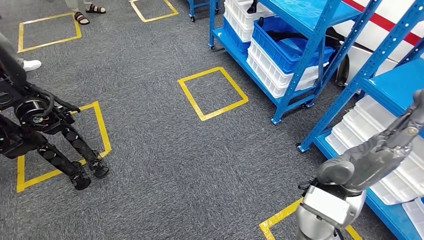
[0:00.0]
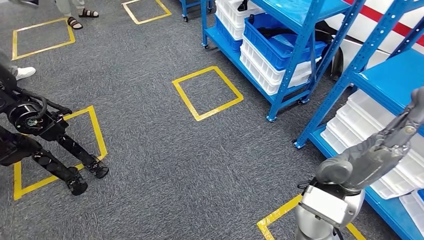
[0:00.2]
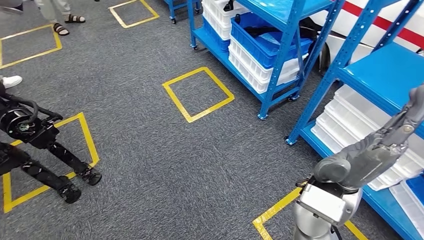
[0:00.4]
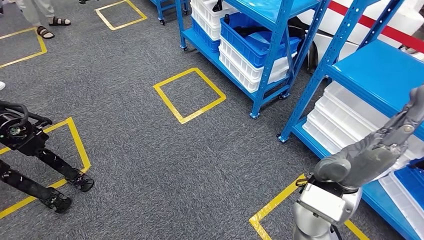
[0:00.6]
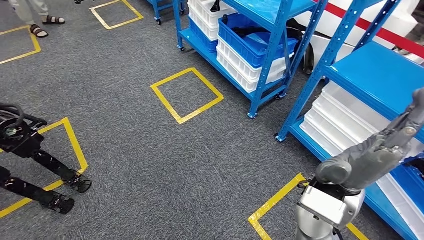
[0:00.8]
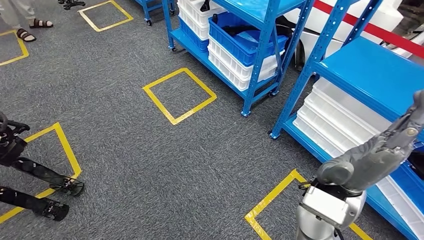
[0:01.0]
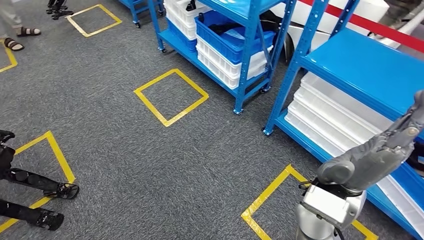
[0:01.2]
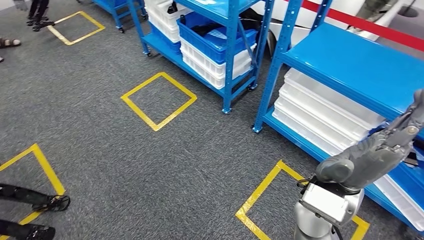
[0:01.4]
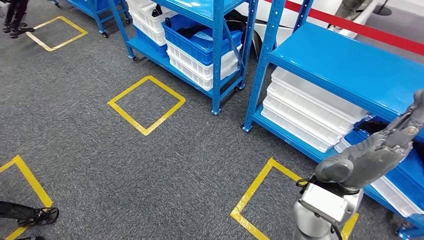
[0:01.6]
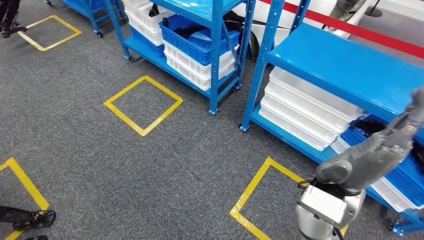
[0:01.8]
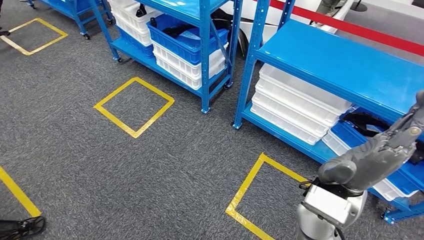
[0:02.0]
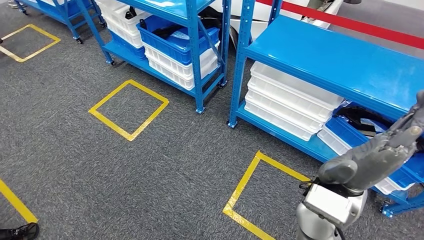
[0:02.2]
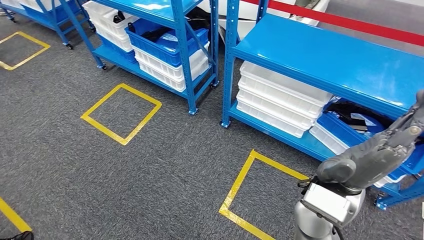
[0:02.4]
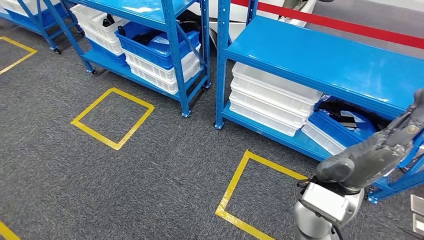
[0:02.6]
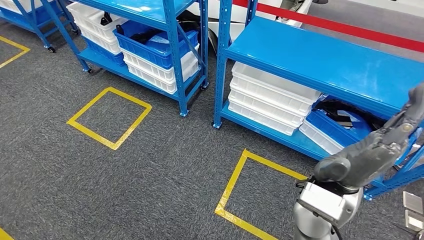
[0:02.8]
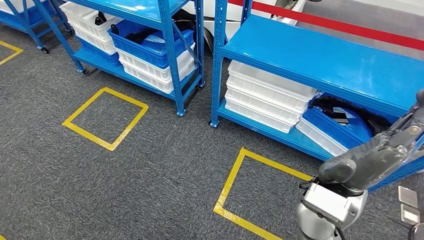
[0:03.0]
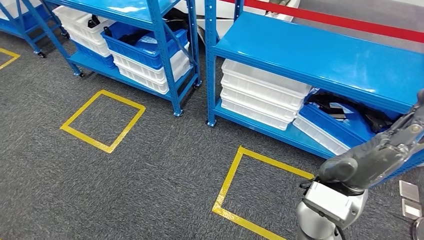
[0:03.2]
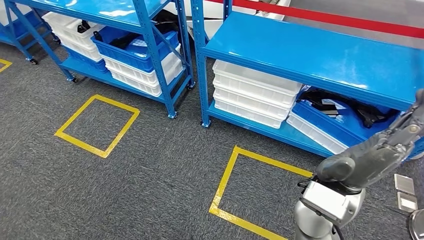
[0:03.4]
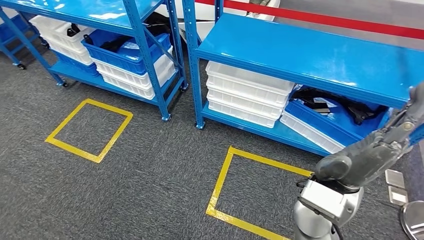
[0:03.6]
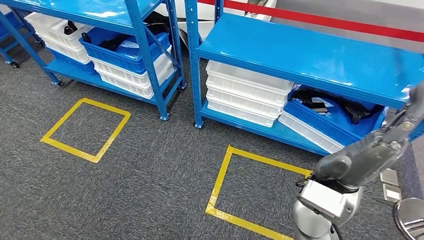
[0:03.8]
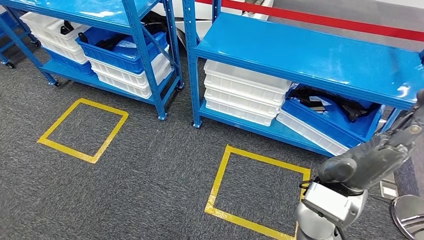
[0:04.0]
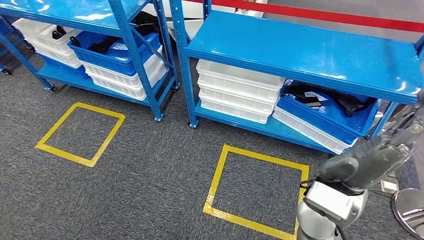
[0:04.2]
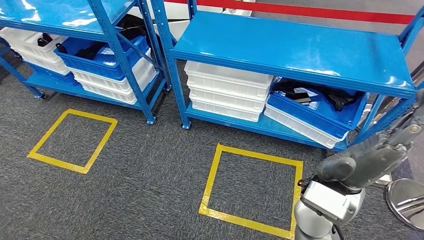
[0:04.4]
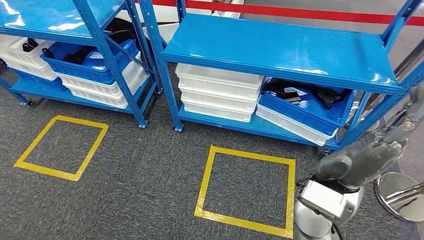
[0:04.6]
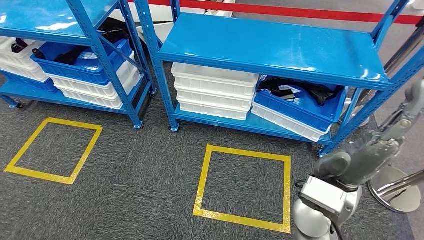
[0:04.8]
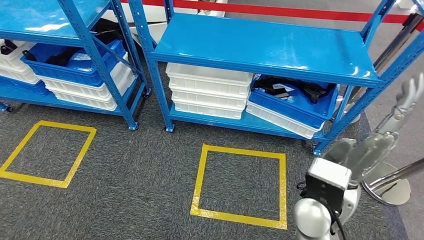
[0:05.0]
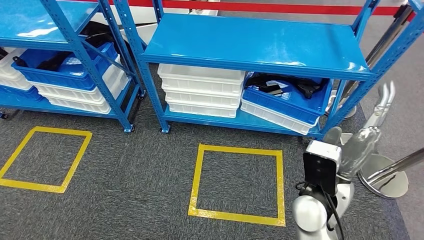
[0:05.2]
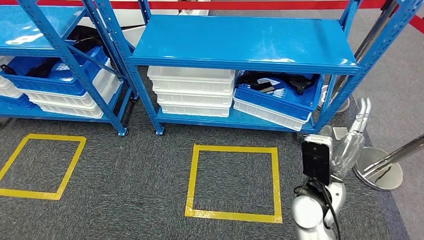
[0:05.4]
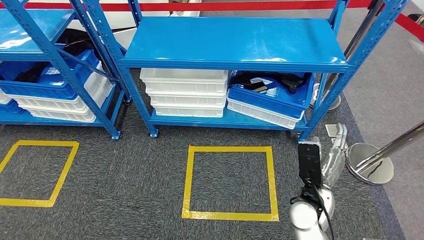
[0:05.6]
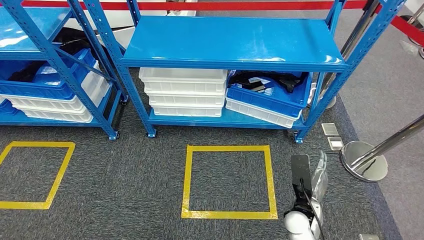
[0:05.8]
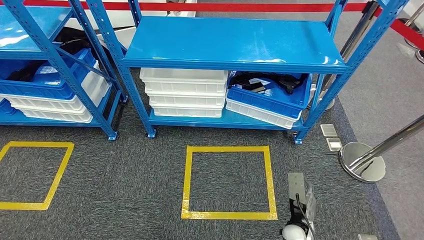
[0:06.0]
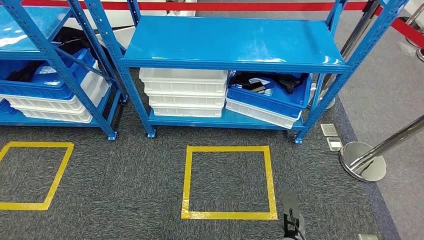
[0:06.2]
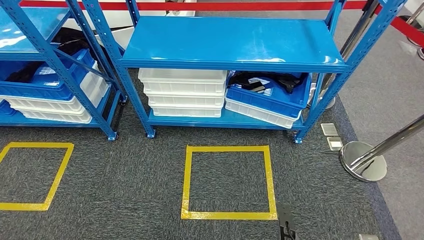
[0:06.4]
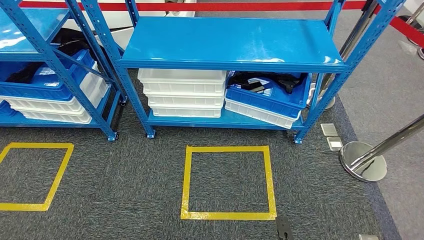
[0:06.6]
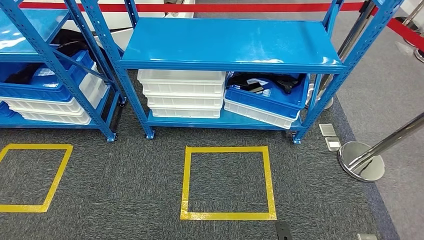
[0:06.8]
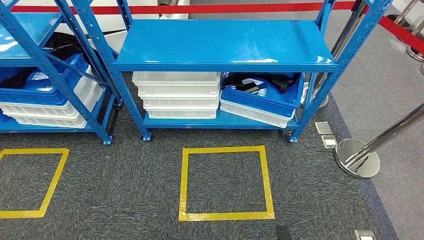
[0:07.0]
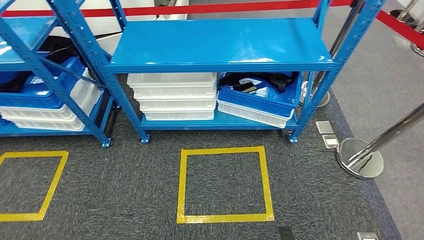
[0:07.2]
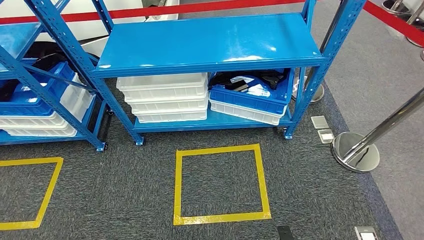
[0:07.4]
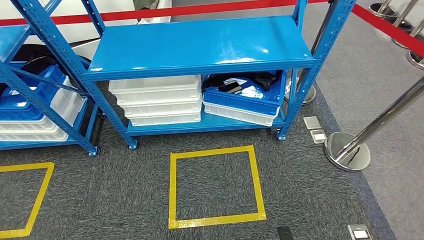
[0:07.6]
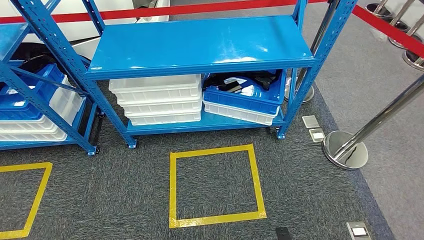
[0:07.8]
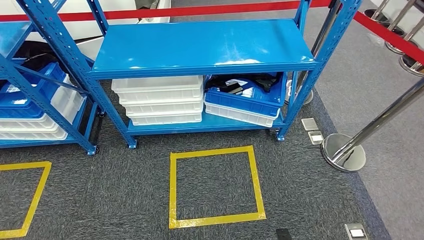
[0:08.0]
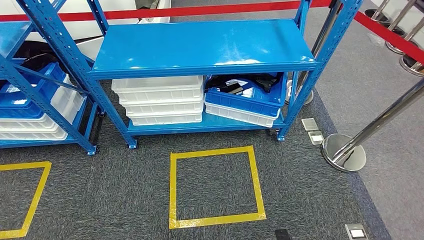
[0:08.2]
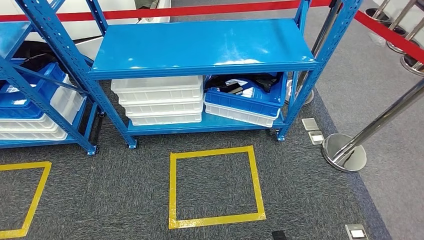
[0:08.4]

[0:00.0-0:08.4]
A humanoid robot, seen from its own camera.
Step, 0:00.0 to 0:08.4: Return to the initial position at the shelf.
